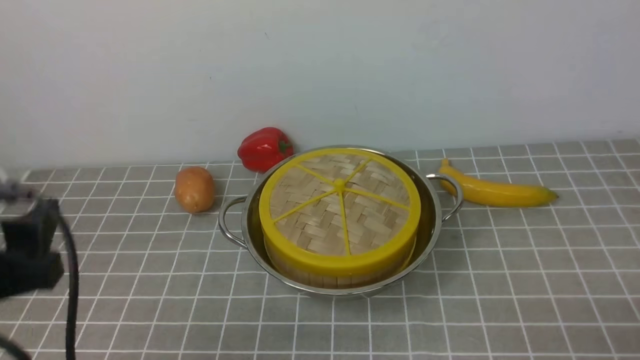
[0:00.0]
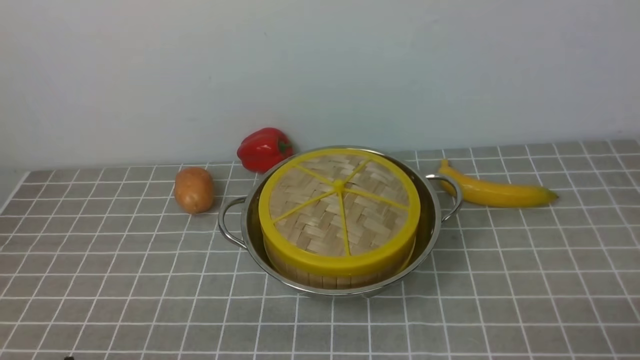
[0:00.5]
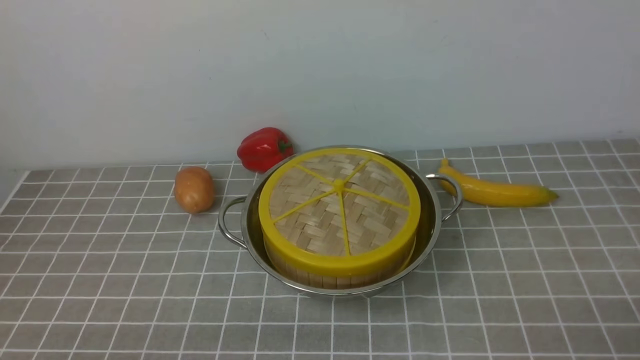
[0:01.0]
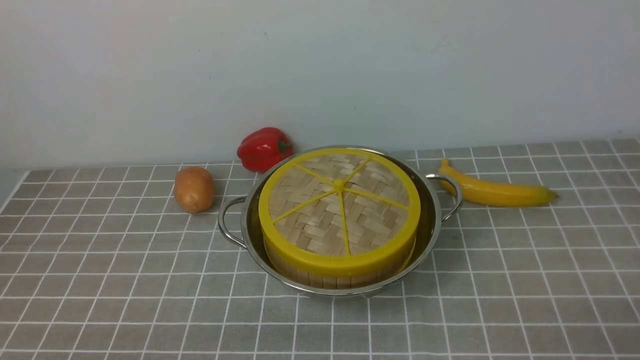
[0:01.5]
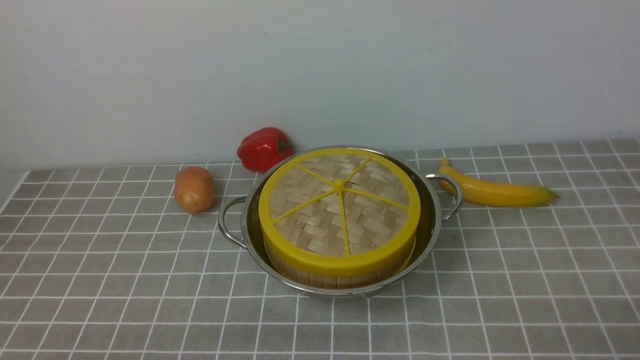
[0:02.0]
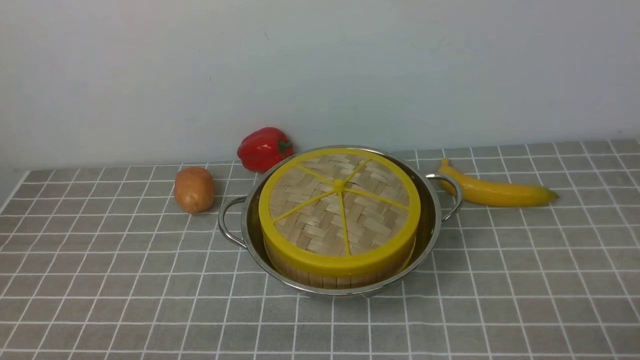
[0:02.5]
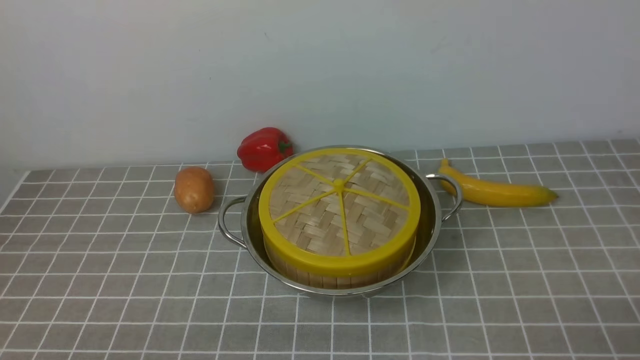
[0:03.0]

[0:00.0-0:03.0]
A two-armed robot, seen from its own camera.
Task of the whole recording: place the steamer in the pot on the grey tablecloth, and put the lid on the steamer.
0:00.0 to 0:01.5: The left gripper moves downward and backward, about 20 cm.
0:01.5 to 0:03.0: Both grippers stay about where they are.
